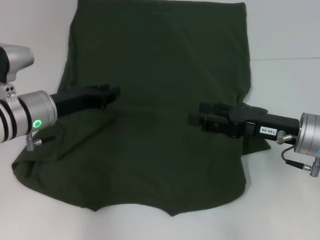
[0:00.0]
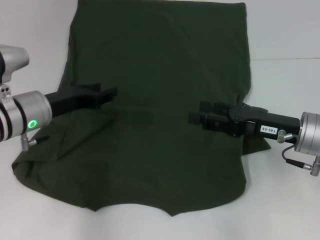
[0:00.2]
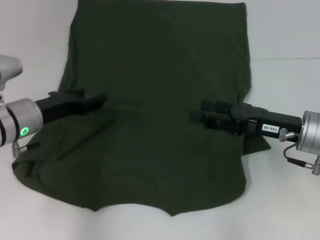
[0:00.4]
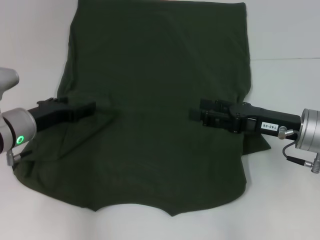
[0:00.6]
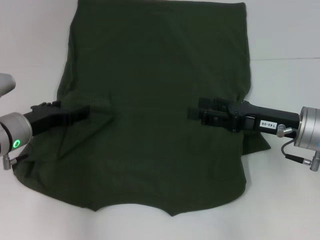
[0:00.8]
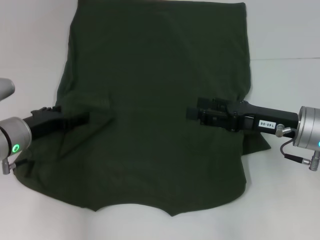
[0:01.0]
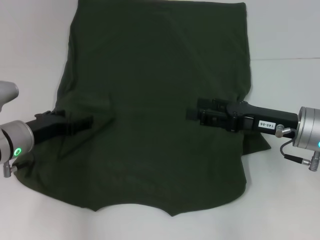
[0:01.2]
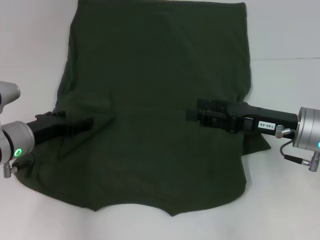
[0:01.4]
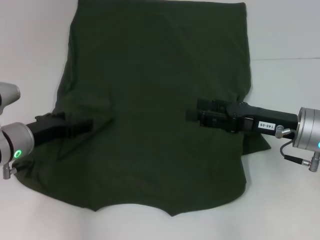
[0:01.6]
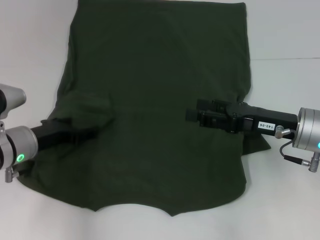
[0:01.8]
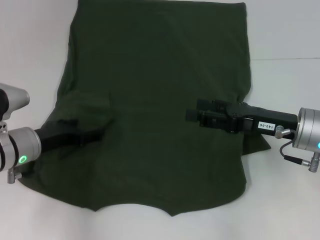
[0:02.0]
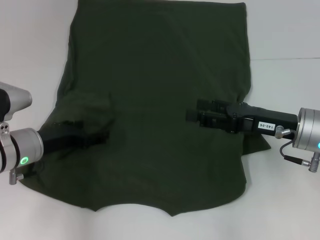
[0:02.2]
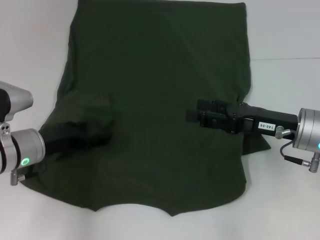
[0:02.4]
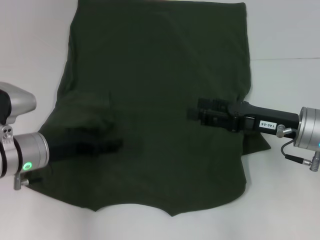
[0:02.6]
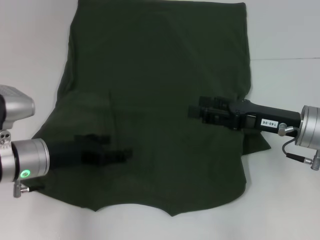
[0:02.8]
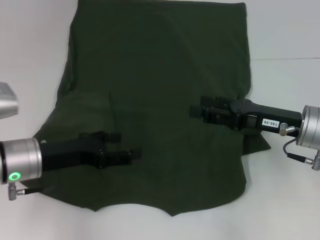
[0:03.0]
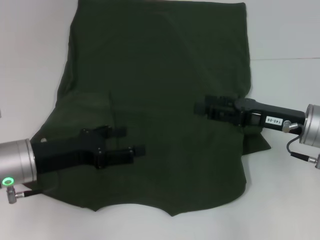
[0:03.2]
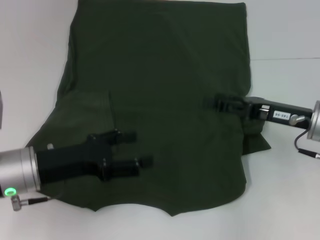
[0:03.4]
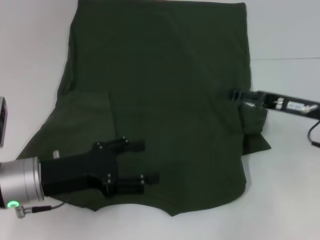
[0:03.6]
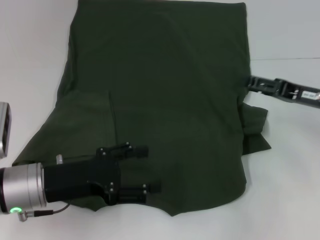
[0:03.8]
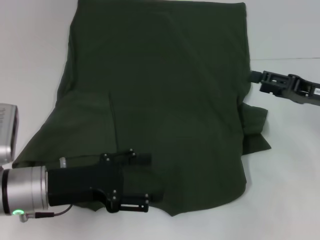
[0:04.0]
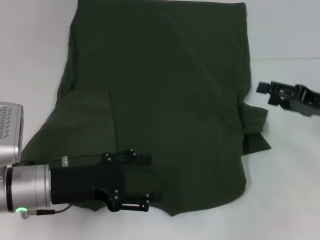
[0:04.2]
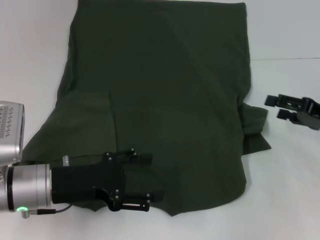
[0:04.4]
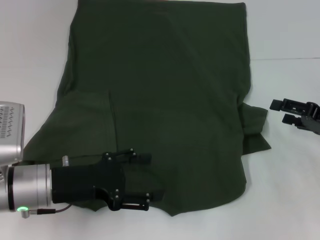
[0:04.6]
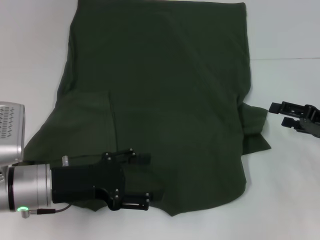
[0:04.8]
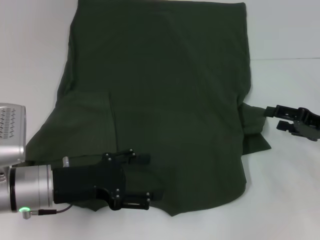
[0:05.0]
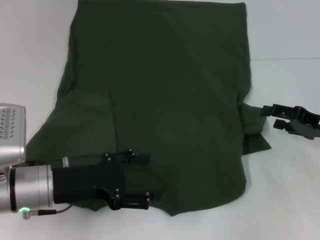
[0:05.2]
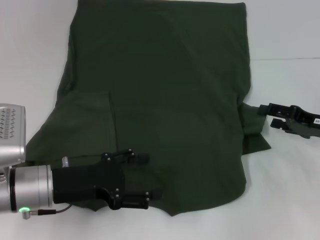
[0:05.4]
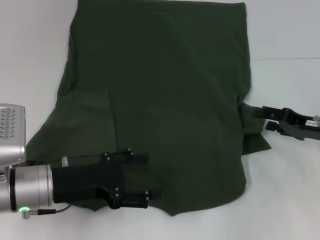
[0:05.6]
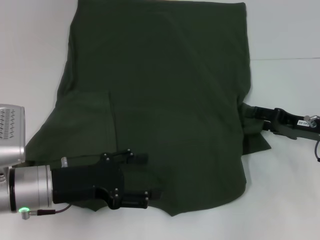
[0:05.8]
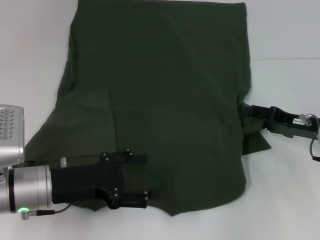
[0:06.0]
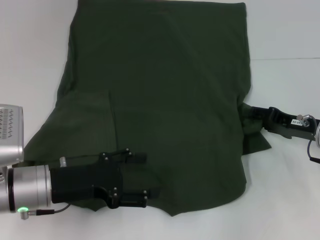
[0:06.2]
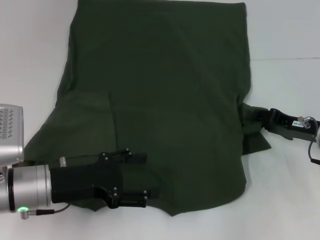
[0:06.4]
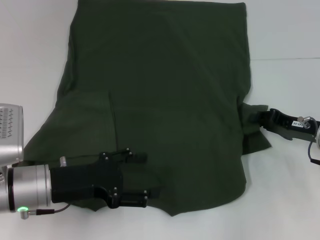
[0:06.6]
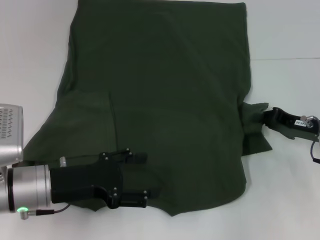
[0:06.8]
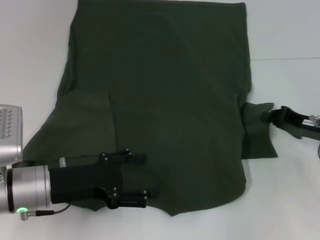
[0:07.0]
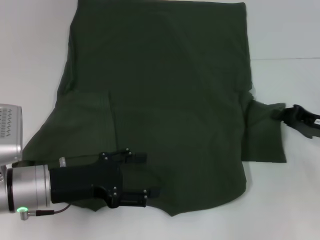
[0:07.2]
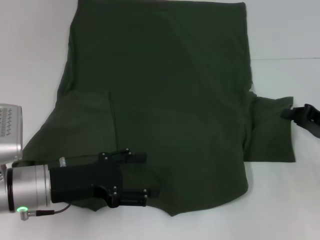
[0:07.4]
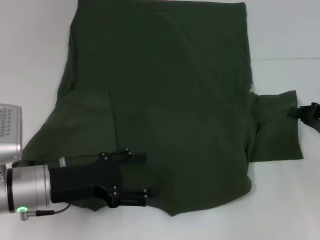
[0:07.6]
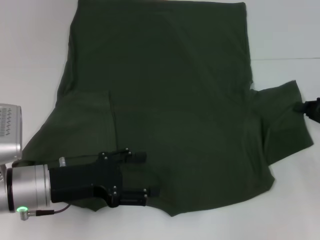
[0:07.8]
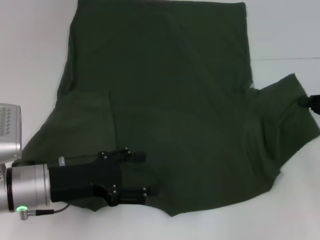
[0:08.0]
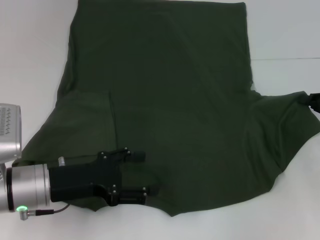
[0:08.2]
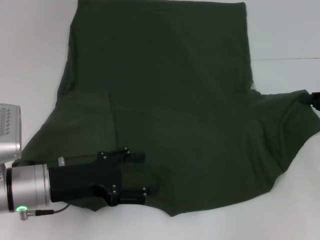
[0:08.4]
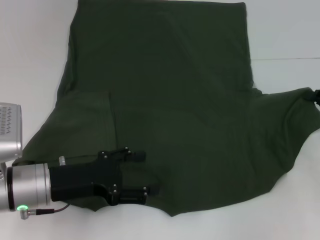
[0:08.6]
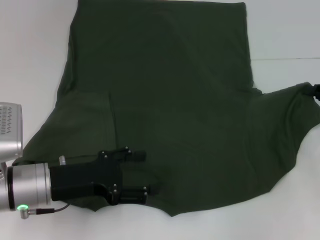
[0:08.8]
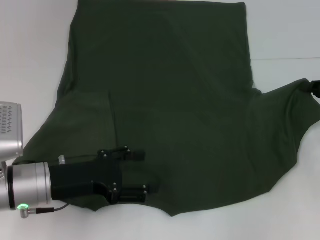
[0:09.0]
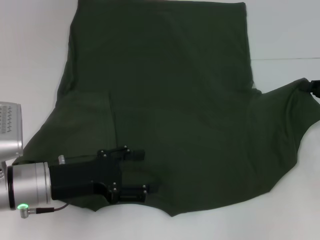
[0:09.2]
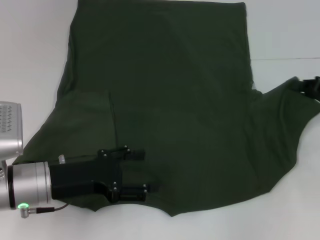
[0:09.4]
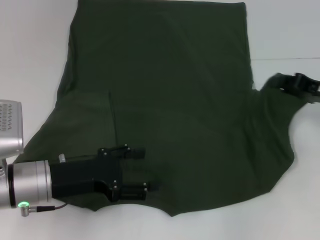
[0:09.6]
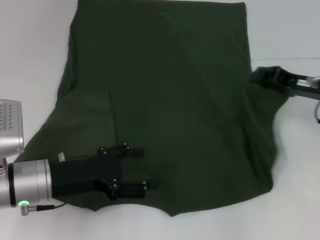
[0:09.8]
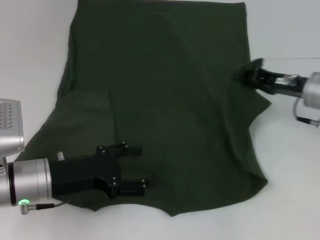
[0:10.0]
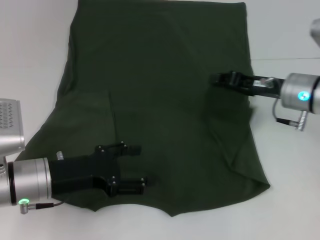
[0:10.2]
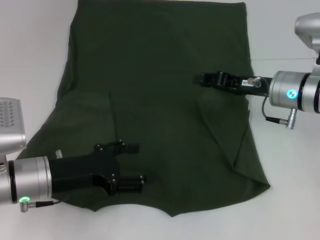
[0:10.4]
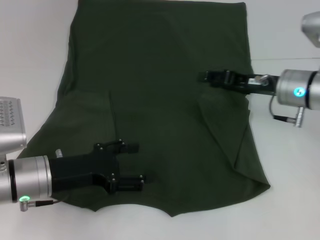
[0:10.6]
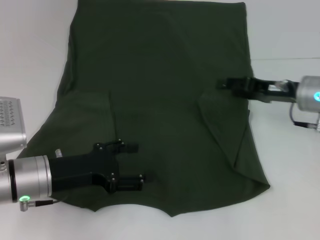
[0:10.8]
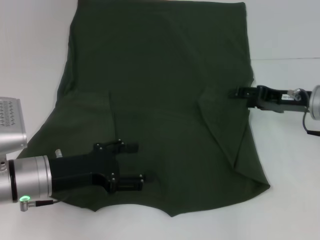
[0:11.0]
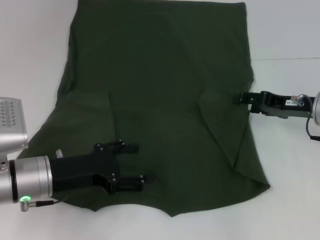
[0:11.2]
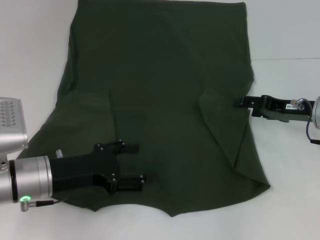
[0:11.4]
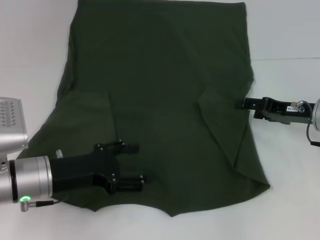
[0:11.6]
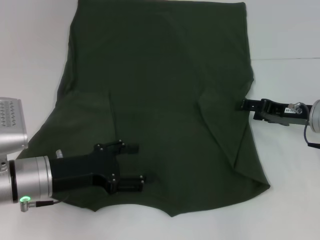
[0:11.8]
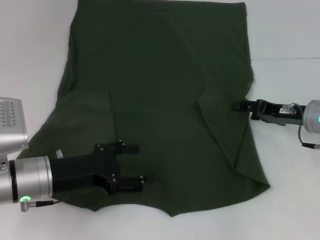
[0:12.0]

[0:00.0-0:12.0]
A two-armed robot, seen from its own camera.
Step, 0:00.0 to 0:02.4: Fold the bottom left sleeve with your left hand.
0:00.0 to 0:01.6: The left gripper changes place by approximately 5 cm, and opens its fingers.
0:01.6 to 0:03.0: The left gripper ends up some 5 cm from where it was.
0:03.0 to 0:04.4: The right gripper shifts some 10 cm to the right.
0:04.4 to 0:06.0: The right gripper changes place by some 5 cm.
0:06.0 to 0:07.6: The right gripper goes about 5 cm to the right, and closes up.
0:07.6 to 0:09.0: The grippers make only small movements.
0:09.0 to 0:10.4: The right gripper shifts roughly 15 cm to the left.
0:10.4 to 0:12.0: The right gripper shifts roughly 5 cm to the right, and opens up.

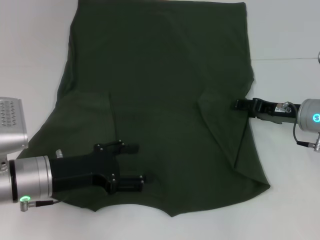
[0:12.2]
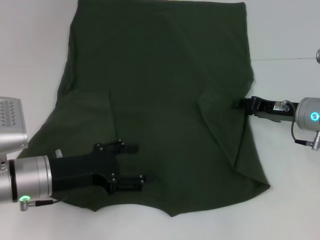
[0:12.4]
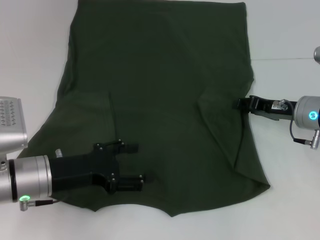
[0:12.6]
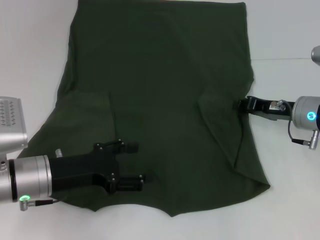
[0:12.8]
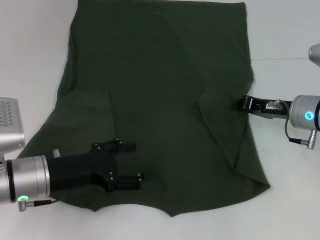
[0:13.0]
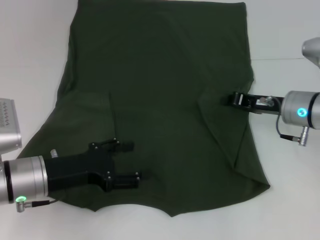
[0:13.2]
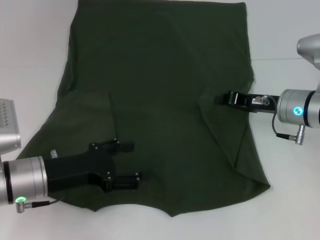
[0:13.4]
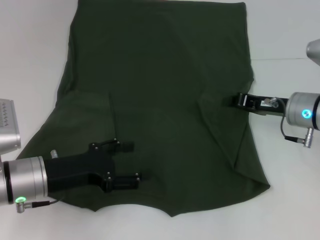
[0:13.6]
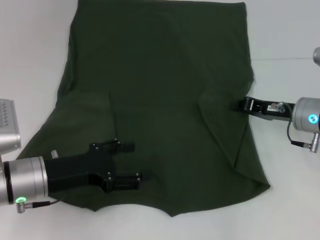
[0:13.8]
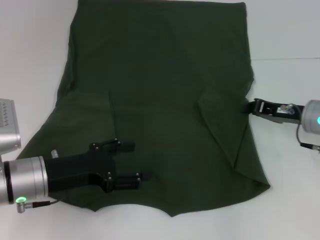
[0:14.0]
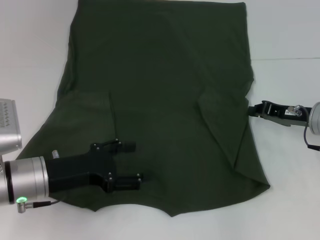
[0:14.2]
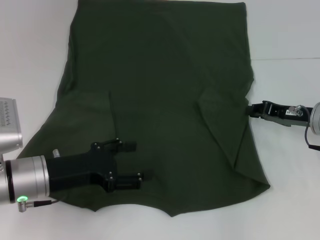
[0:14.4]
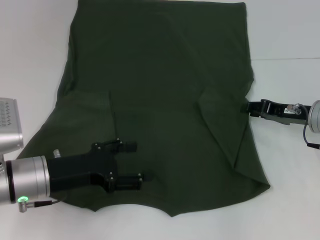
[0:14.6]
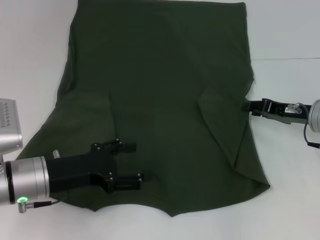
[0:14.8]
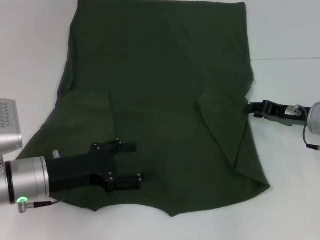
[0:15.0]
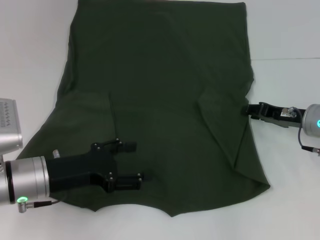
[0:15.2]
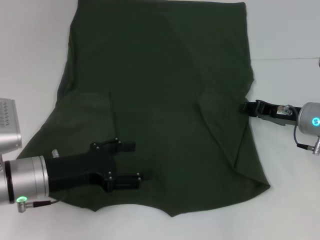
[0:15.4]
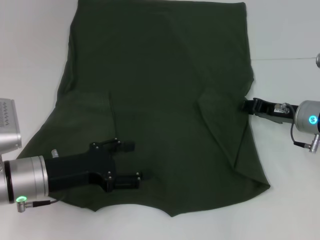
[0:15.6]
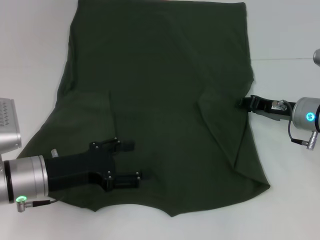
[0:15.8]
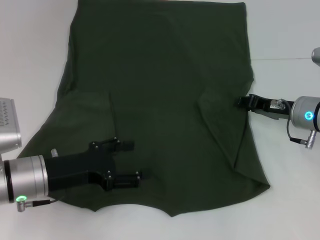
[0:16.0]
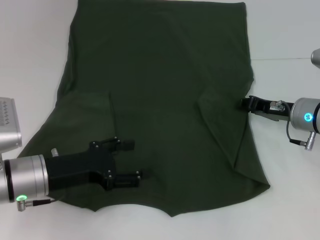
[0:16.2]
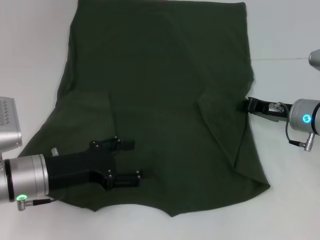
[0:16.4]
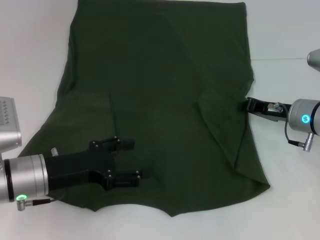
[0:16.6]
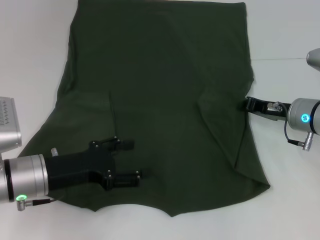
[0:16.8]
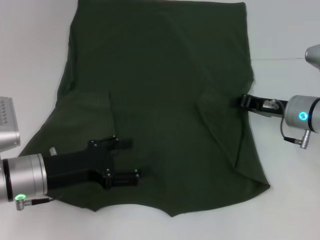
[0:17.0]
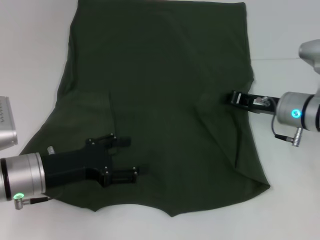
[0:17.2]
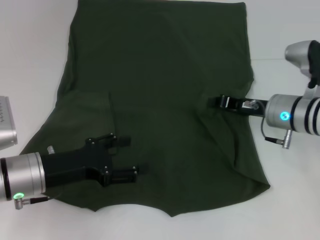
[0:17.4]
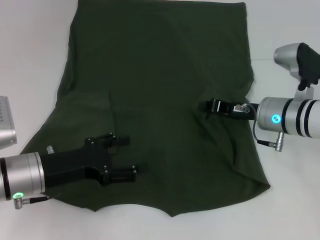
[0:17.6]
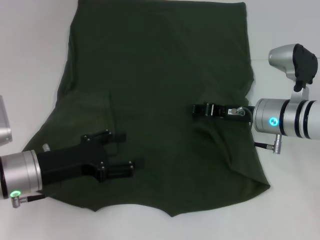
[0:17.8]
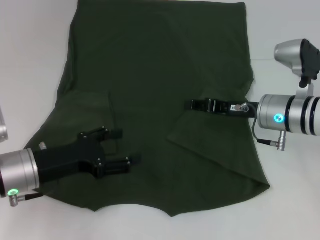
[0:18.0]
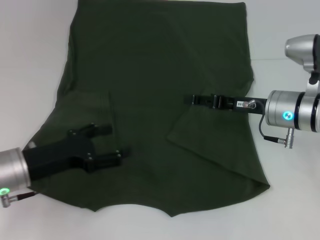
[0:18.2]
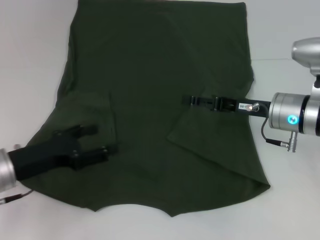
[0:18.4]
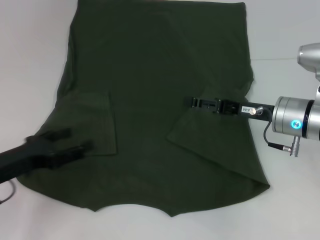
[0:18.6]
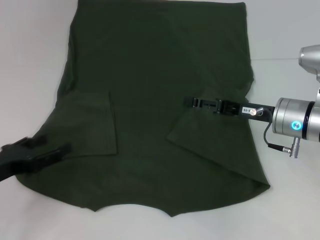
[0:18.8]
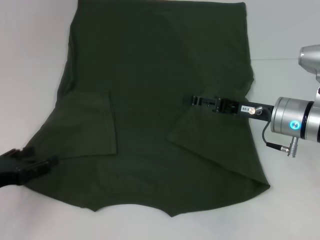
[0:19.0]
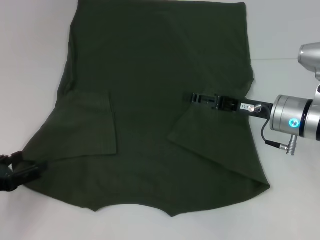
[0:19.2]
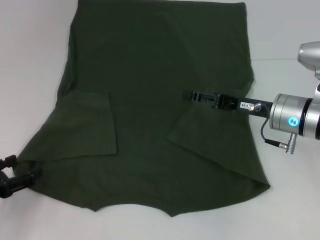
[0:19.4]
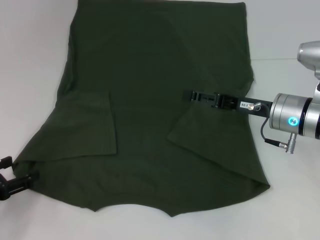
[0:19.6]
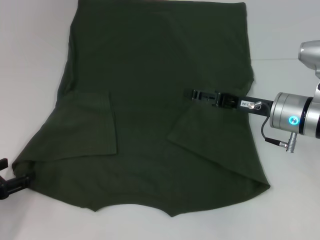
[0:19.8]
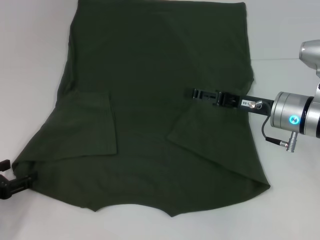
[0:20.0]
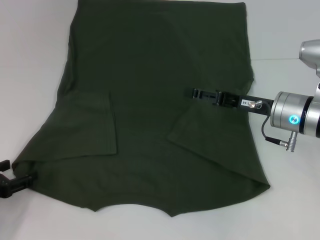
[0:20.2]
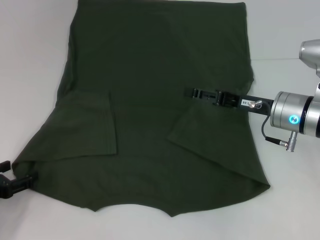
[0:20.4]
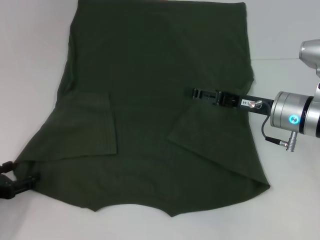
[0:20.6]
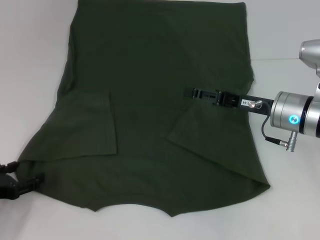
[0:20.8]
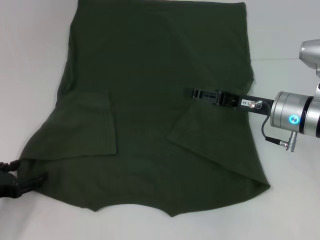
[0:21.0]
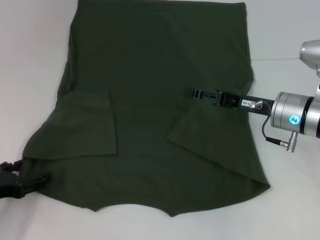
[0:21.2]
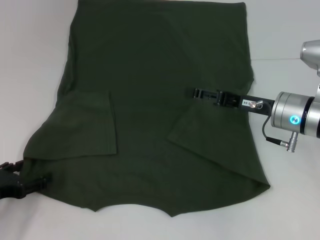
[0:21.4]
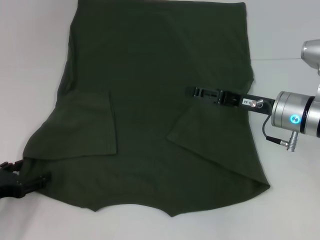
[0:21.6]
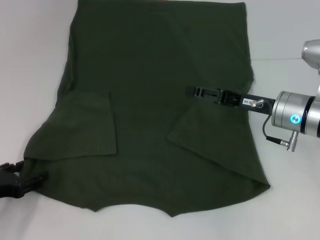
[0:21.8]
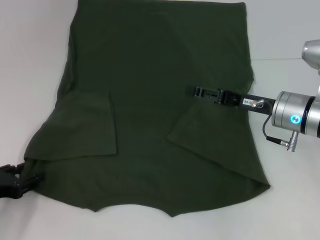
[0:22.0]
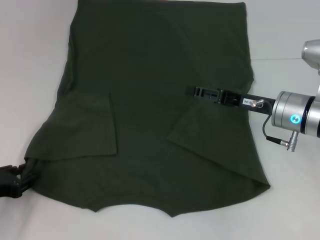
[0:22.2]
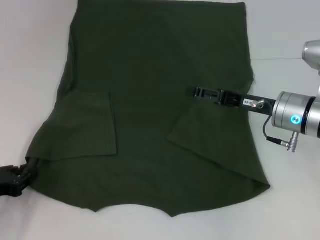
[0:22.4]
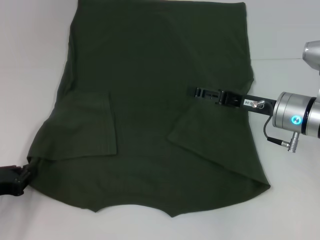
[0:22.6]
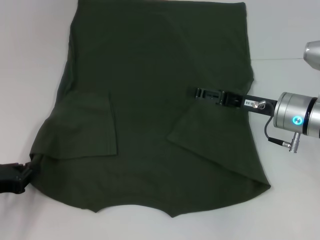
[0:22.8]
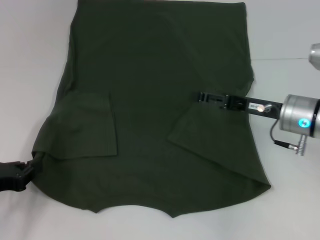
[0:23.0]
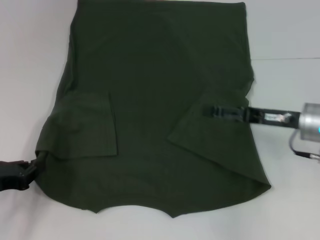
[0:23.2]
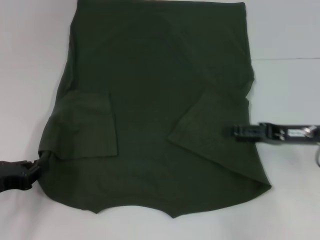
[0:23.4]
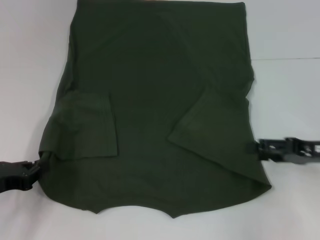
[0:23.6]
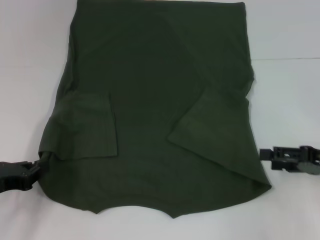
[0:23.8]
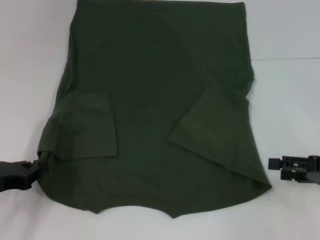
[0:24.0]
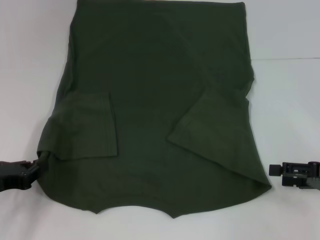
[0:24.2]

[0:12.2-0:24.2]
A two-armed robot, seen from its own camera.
Step, 0:12.2 to 0:17.8: Fold the bottom right sleeve with your right hand.
Step, 0:18.0 to 0:22.4: Grab the bottom left corner with your left hand.
0:12.2 to 0:13.8: The right gripper closes its fingers.
0:13.8 to 0:15.2: The right gripper opens up.
0:15.2 to 0:16.6: The right gripper closes.
0:16.6 to 0:18.2: The right gripper ends up approximately 5 cm from where it was, and opens.
0:18.2 to 0:19.8: The left gripper travels to the left and backward by roughly 10 cm. Meanwhile the right gripper opens.
0:19.8 to 0:21.2: The grippers move only a little.
0:21.2 to 0:22.6: The left gripper closes its fingers.
0:22.6 to 0:24.2: The right gripper goes approximately 15 cm to the right and backward.
